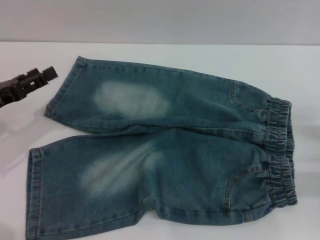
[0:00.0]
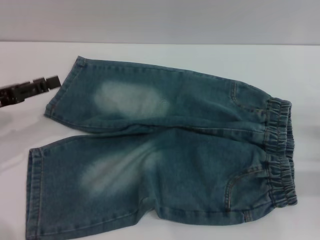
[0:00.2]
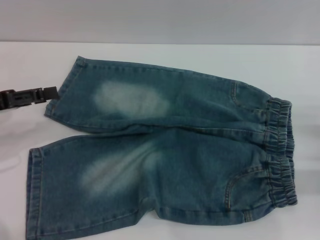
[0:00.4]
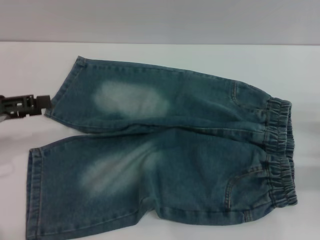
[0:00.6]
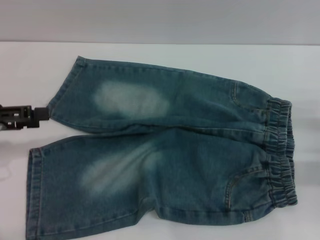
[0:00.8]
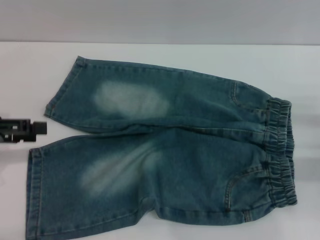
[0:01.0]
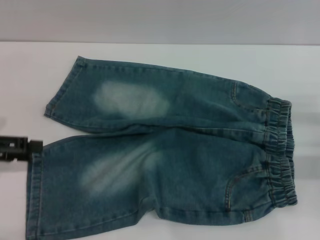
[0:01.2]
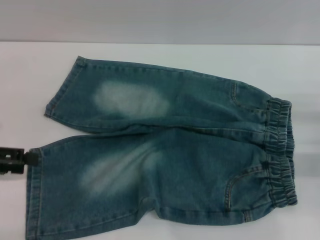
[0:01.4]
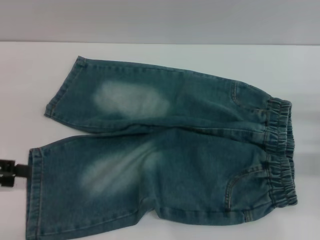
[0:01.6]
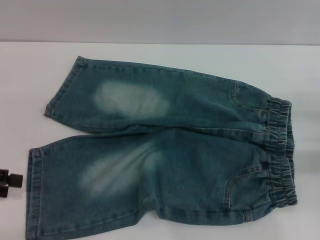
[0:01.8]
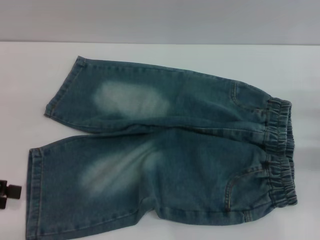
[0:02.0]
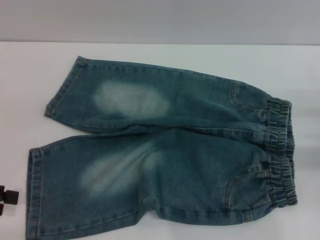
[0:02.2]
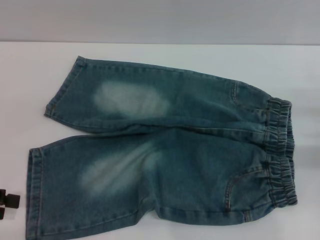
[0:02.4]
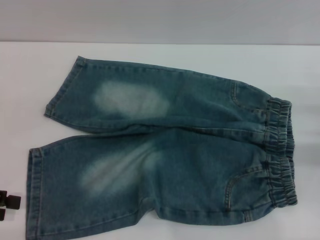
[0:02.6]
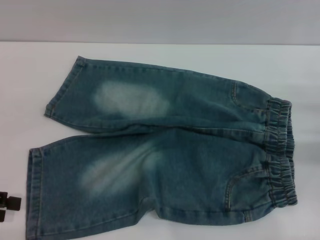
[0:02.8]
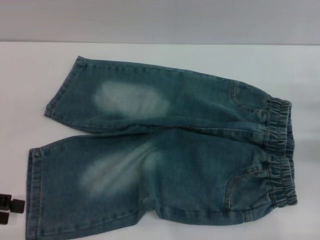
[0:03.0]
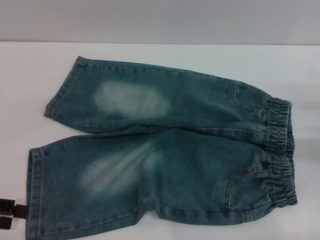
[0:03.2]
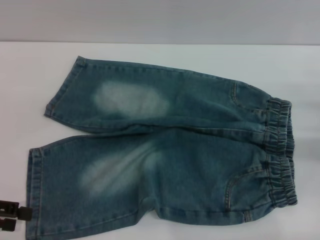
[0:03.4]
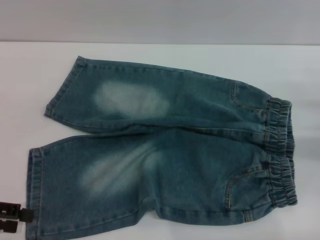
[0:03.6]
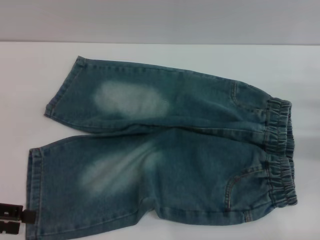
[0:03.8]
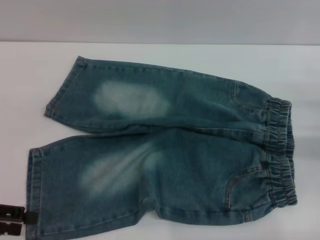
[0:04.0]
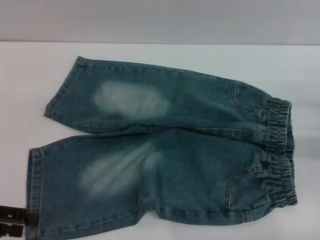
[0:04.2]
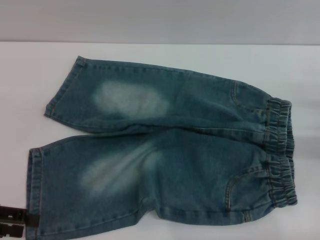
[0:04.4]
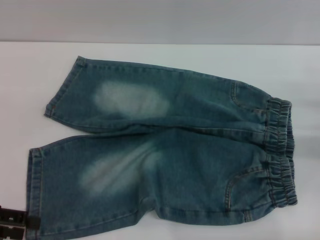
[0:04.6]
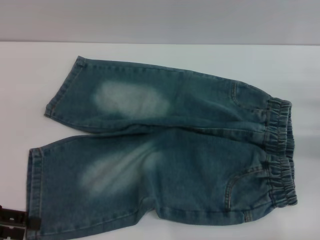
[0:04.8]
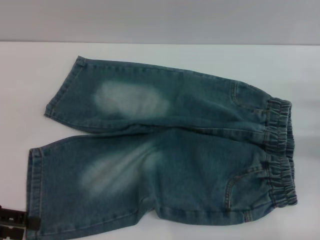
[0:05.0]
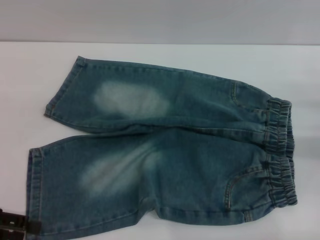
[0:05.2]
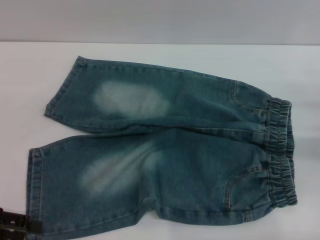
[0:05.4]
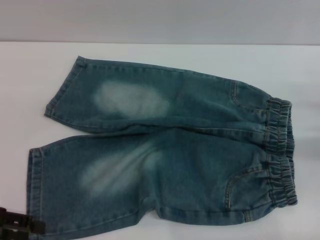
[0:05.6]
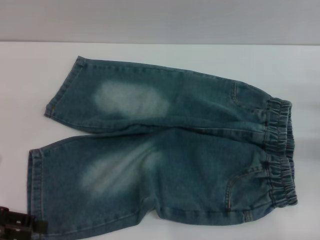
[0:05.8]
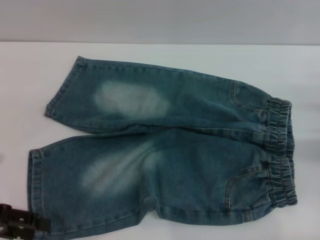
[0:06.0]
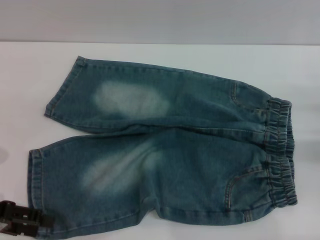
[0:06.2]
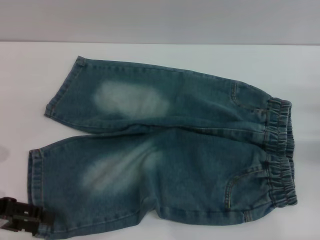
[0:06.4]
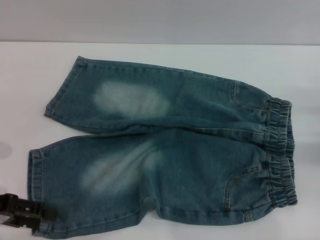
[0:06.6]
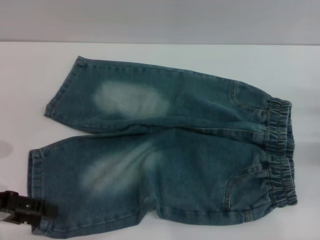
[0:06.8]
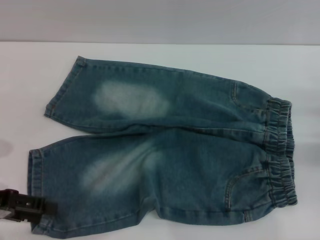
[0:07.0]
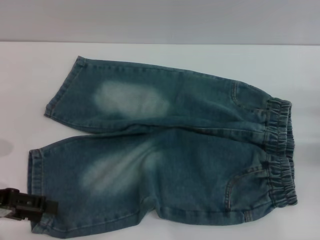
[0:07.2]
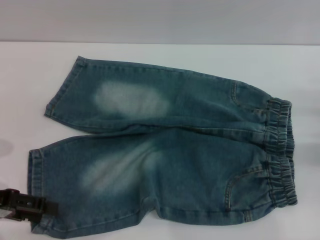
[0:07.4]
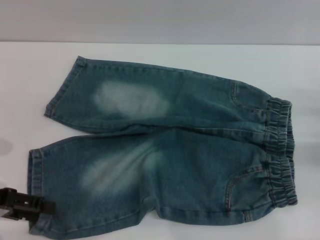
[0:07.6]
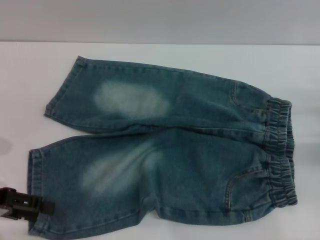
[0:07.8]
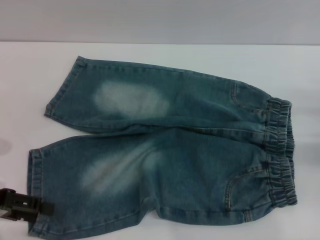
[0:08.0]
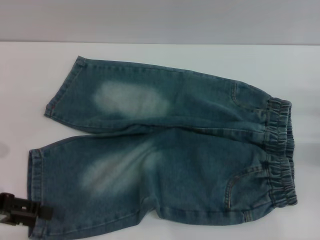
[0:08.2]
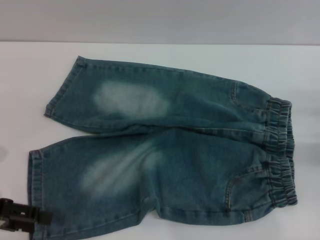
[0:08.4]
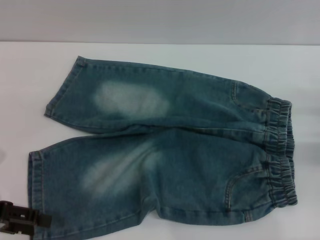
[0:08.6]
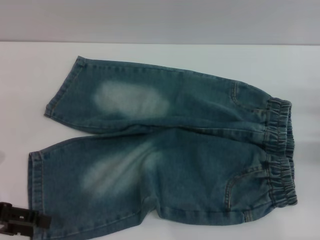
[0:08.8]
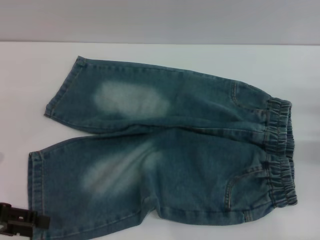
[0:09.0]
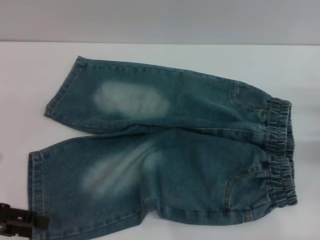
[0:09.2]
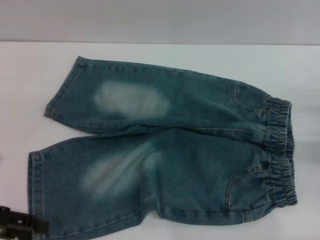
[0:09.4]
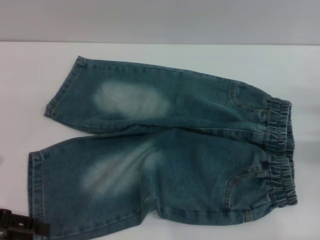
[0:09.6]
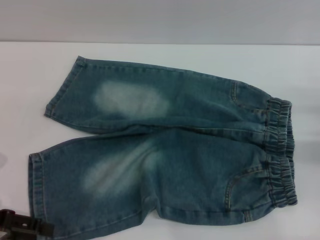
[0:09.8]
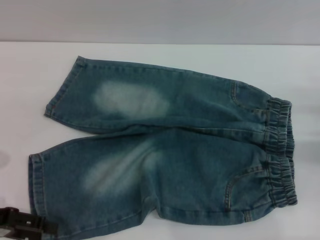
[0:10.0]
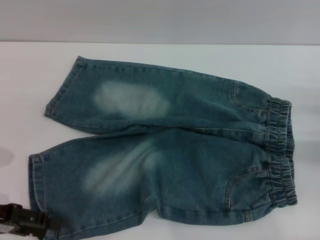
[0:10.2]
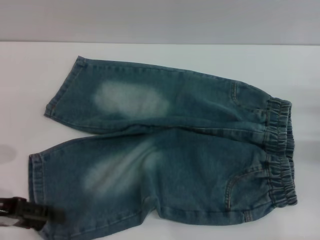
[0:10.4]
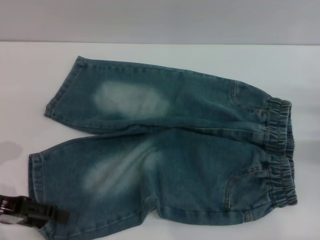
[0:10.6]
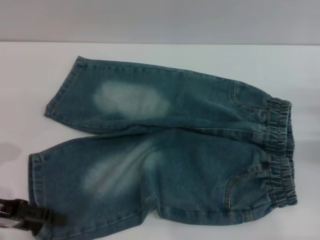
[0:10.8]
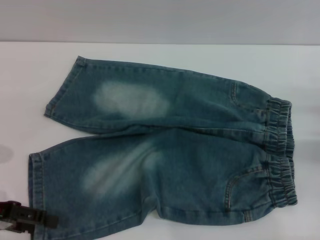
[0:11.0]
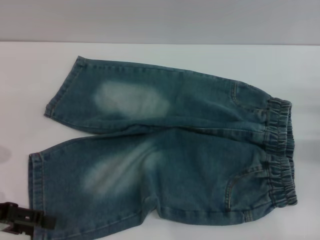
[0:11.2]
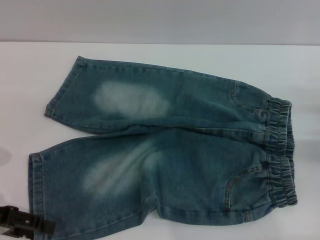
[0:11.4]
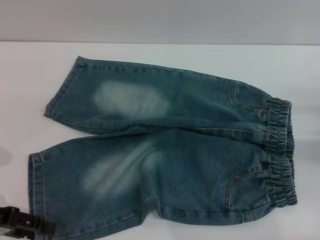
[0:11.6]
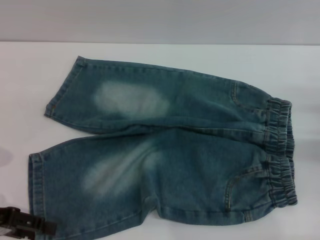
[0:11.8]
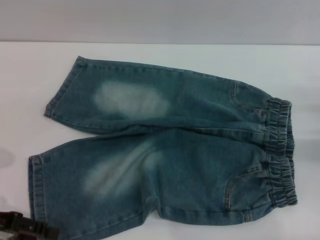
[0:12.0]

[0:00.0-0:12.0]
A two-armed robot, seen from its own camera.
0:00.0 to 0:01.6: The left gripper shifts about 5 cm to the left.
0:01.6 to 0:09.0: The grippers stay close to where they were, moving slightly.
0:09.0 to 0:10.4: The grippers make only small movements.
0:10.4 to 0:12.0: The two grippers keep their place.

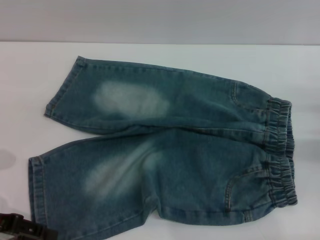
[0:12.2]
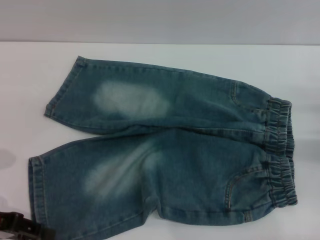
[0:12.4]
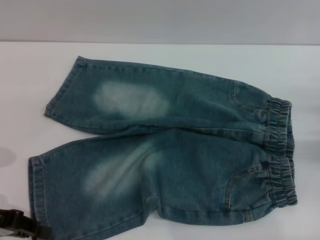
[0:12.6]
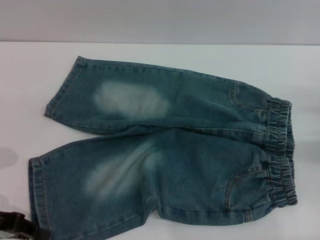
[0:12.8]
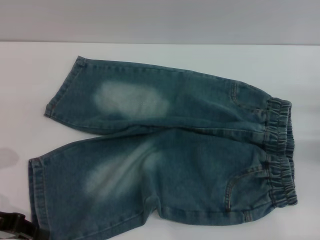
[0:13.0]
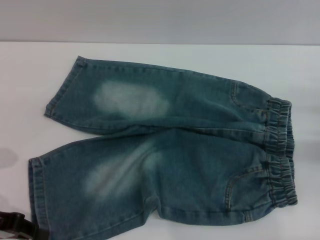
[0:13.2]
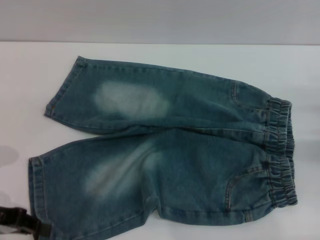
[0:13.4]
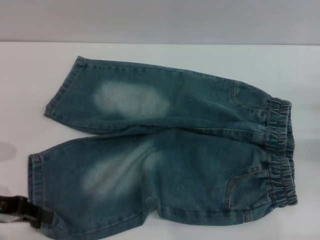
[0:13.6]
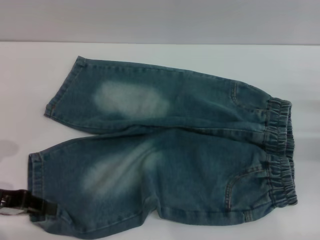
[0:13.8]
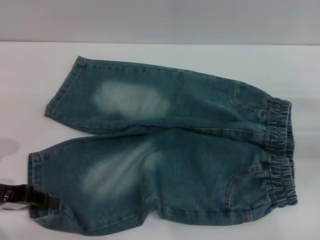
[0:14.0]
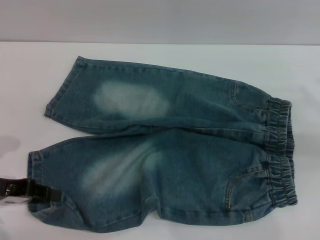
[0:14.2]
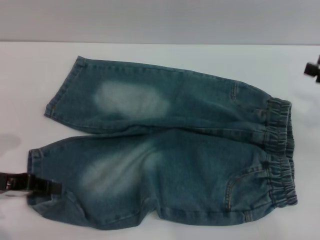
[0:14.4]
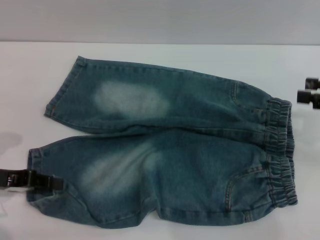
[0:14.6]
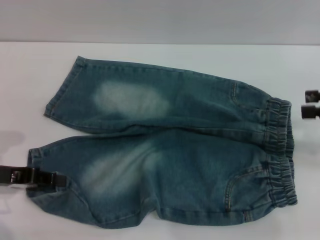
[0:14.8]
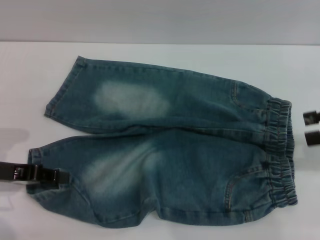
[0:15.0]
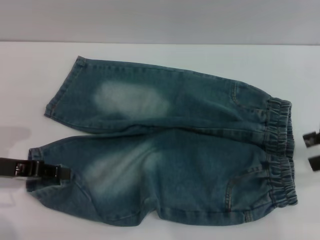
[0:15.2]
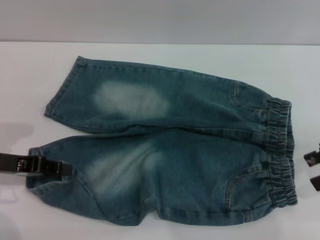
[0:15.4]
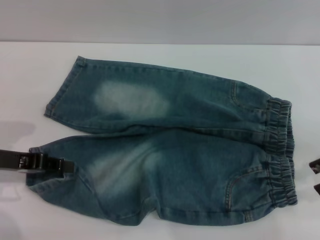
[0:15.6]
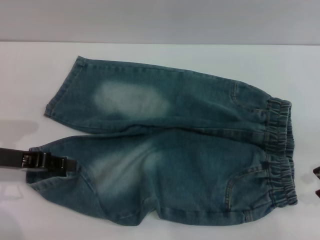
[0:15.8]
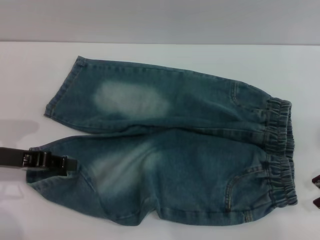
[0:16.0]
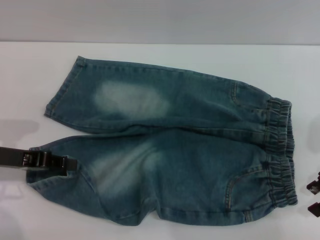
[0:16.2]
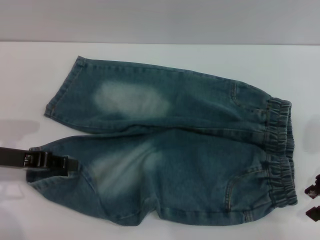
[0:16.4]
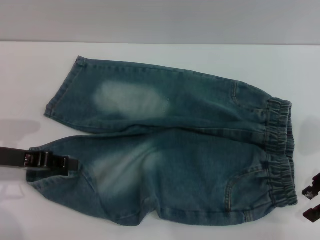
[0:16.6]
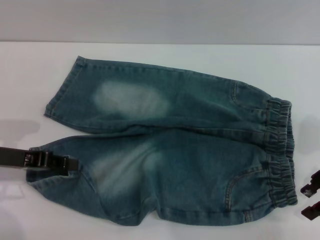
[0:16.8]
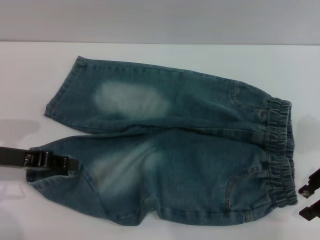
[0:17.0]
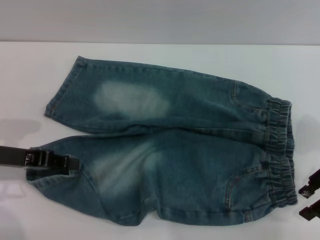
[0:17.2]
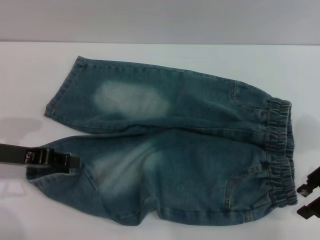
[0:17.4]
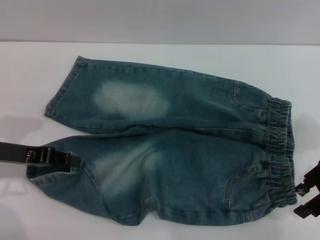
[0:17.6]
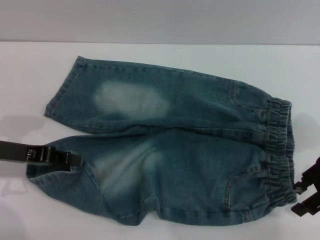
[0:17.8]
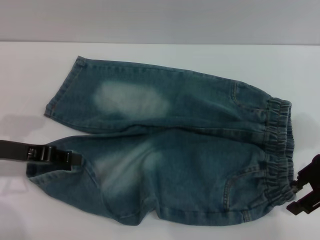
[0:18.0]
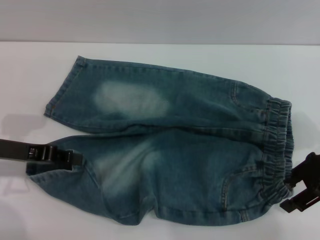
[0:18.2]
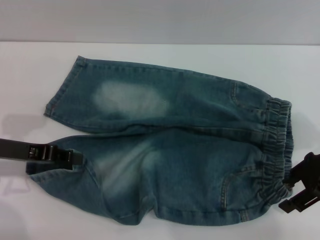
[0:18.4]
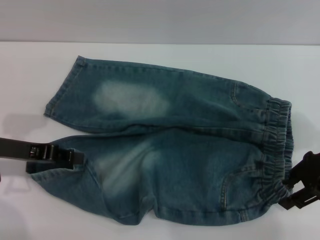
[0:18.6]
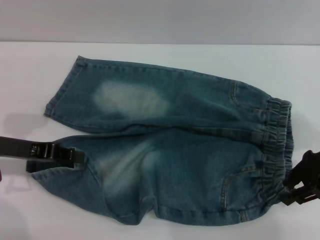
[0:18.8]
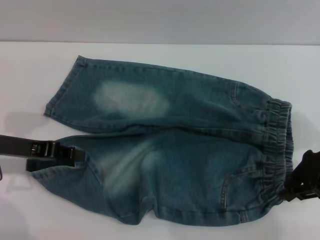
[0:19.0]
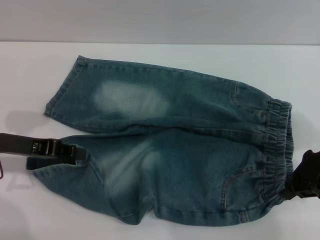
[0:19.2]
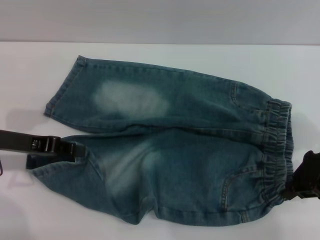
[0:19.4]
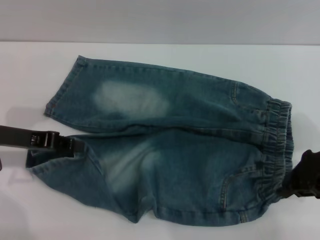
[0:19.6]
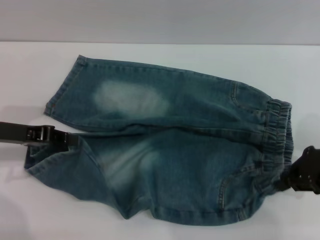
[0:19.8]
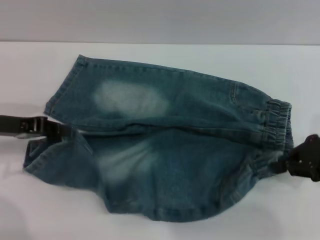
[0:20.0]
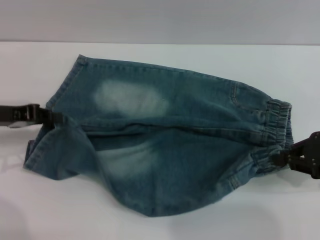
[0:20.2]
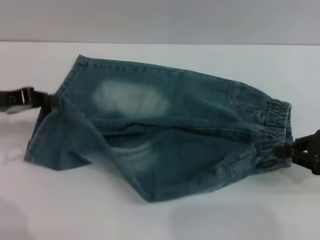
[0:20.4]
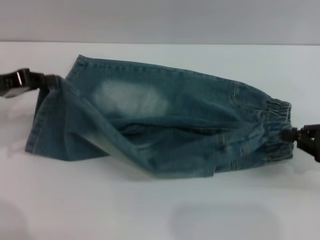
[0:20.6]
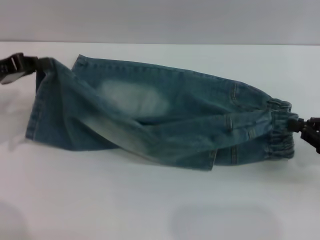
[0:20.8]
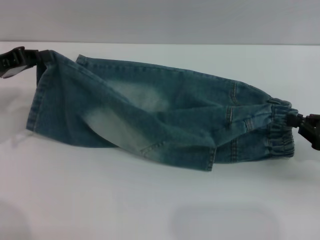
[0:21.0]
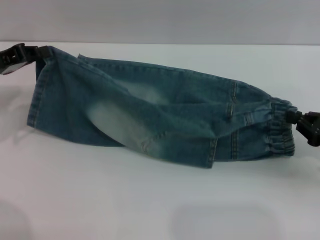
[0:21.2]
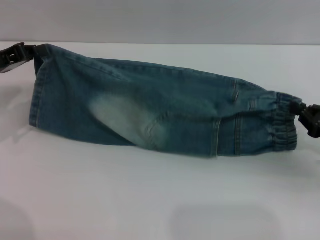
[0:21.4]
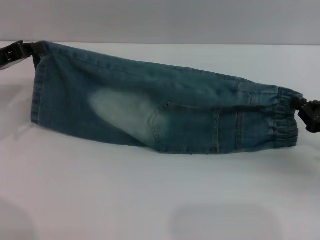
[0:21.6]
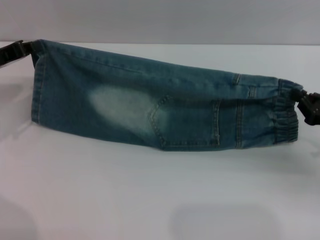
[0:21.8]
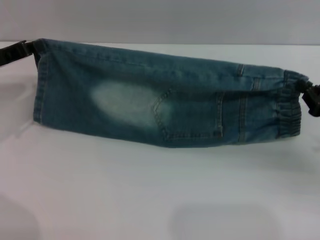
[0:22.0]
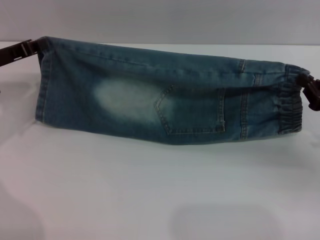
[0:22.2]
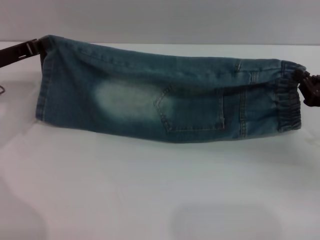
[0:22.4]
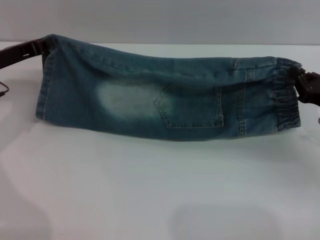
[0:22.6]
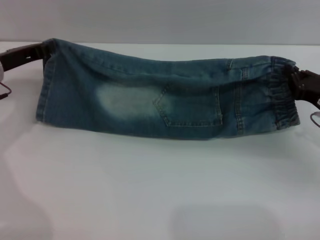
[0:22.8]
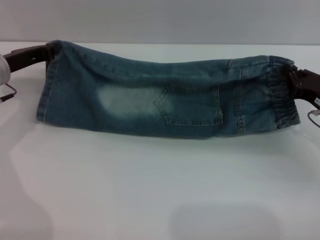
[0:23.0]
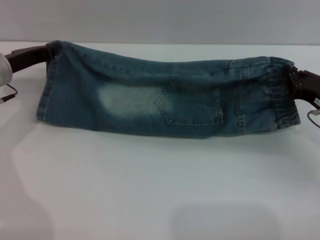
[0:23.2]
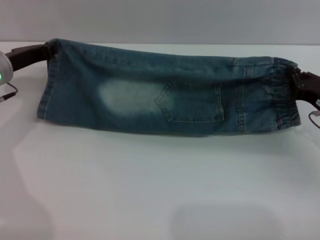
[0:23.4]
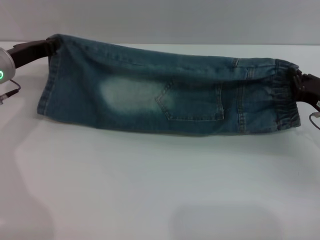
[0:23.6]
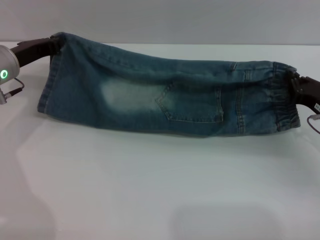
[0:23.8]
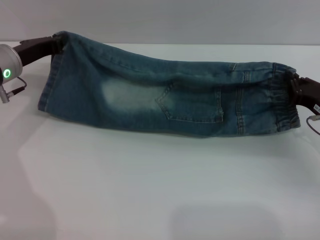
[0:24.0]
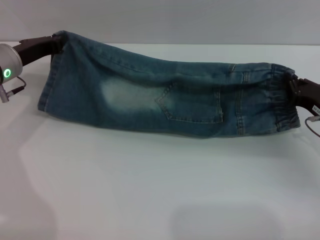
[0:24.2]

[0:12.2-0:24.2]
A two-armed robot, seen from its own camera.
0:12.2 to 0:13.8: The left gripper closes its fingers.
0:13.8 to 0:15.2: The right gripper travels upward by about 15 cm.
0:15.2 to 0:16.6: The right gripper goes about 5 cm downward.
0:16.6 to 0:18.2: The grippers make only small movements.
0:18.2 to 0:19.8: The right gripper closes.
0:19.8 to 0:21.2: The right gripper shifts roughly 5 cm downward. The left gripper ends up approximately 5 cm from where it was.
0:21.2 to 0:22.6: The right gripper ends up some 5 cm from where it was.
0:22.6 to 0:24.2: There are only small adjustments of the grippers.
